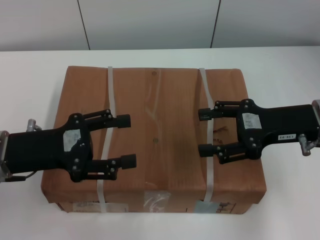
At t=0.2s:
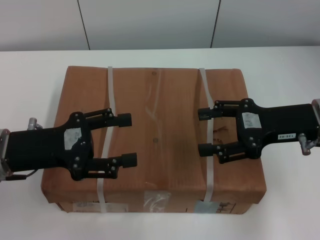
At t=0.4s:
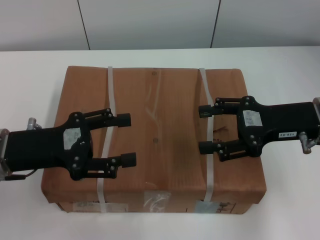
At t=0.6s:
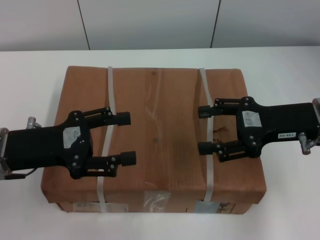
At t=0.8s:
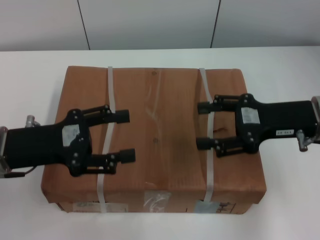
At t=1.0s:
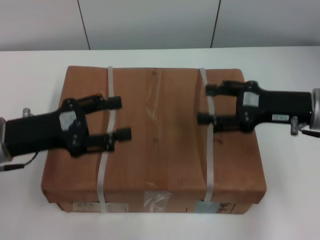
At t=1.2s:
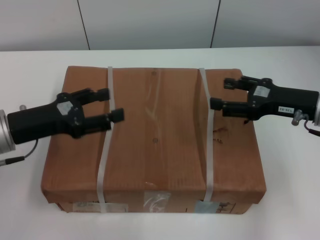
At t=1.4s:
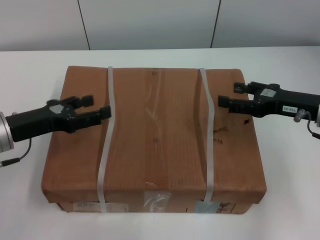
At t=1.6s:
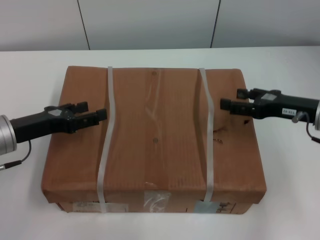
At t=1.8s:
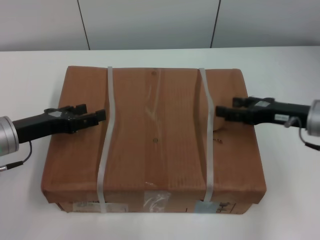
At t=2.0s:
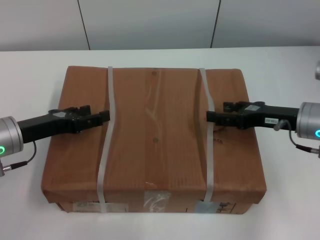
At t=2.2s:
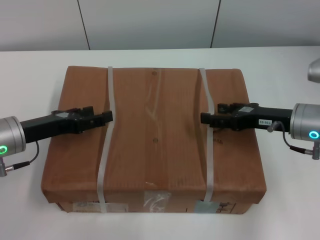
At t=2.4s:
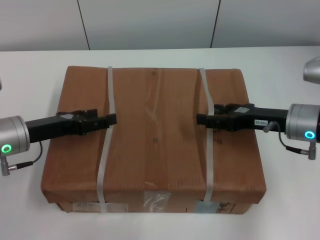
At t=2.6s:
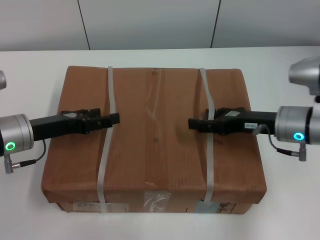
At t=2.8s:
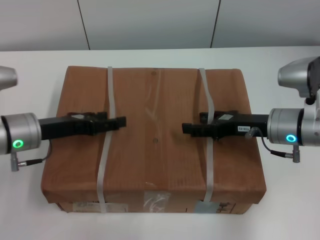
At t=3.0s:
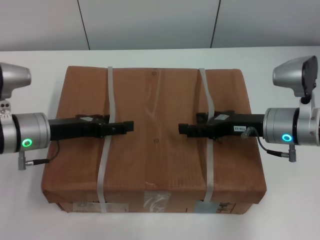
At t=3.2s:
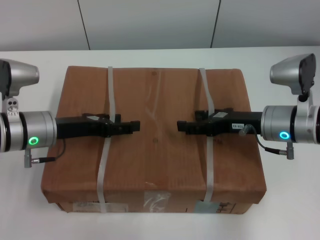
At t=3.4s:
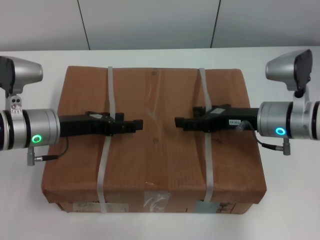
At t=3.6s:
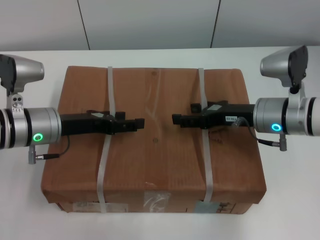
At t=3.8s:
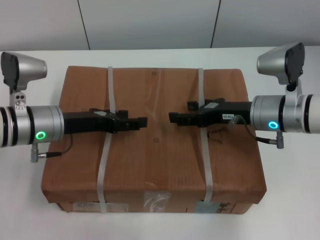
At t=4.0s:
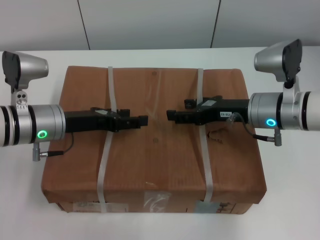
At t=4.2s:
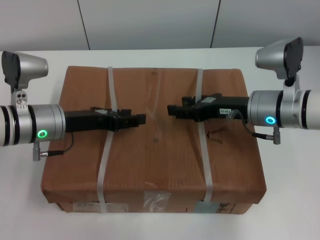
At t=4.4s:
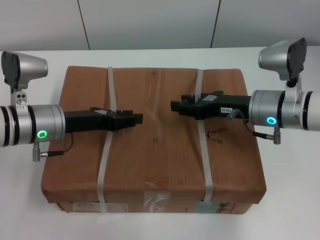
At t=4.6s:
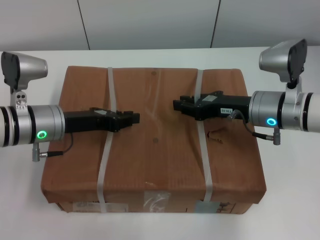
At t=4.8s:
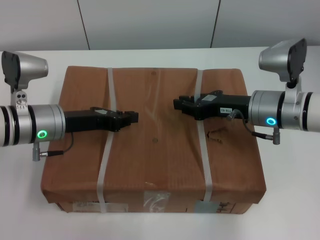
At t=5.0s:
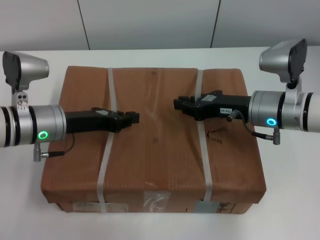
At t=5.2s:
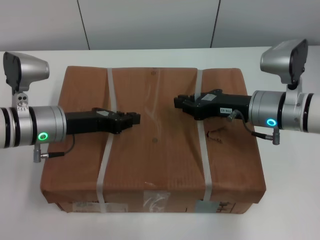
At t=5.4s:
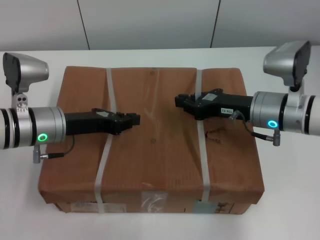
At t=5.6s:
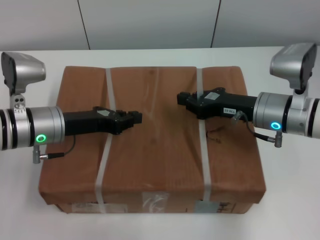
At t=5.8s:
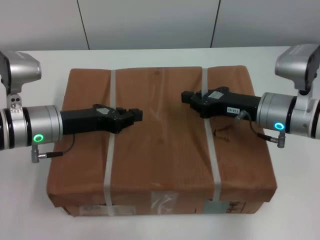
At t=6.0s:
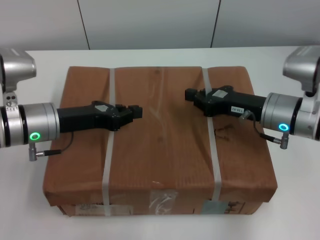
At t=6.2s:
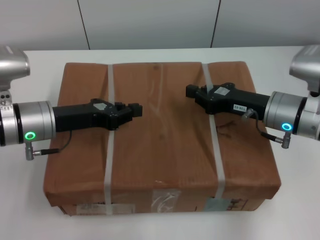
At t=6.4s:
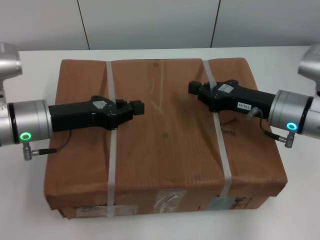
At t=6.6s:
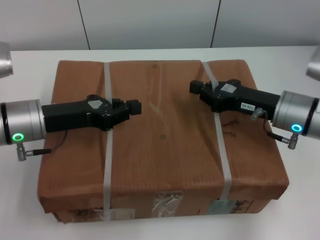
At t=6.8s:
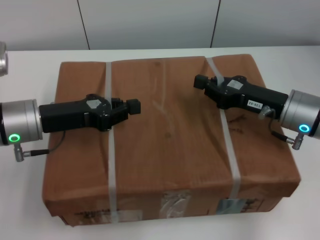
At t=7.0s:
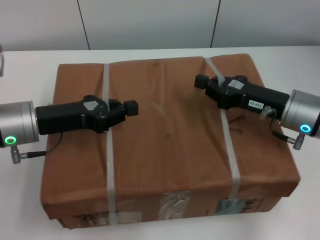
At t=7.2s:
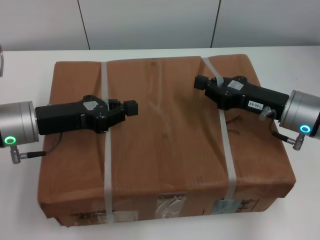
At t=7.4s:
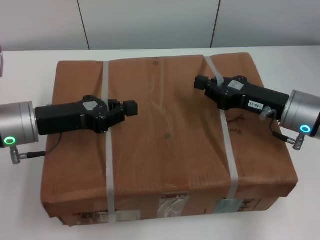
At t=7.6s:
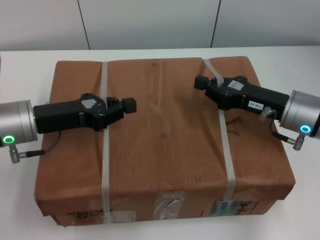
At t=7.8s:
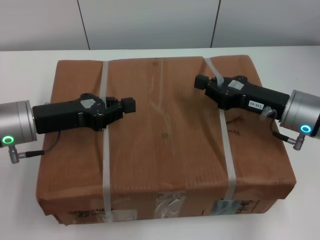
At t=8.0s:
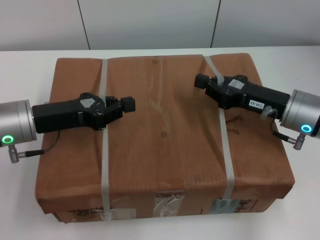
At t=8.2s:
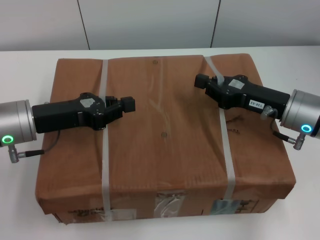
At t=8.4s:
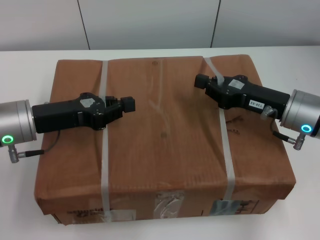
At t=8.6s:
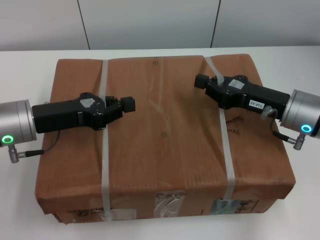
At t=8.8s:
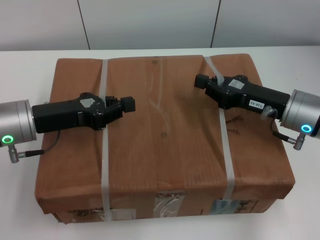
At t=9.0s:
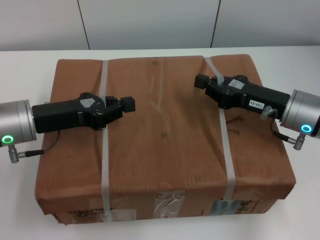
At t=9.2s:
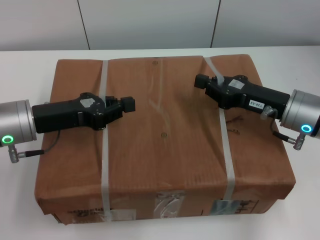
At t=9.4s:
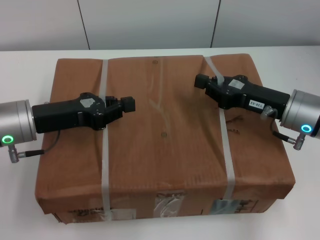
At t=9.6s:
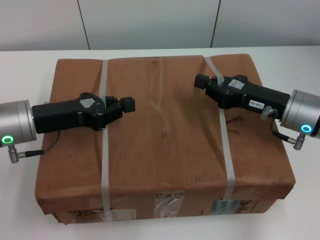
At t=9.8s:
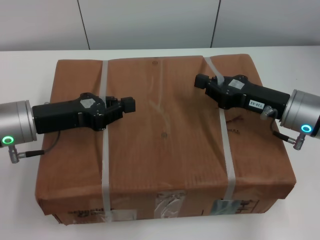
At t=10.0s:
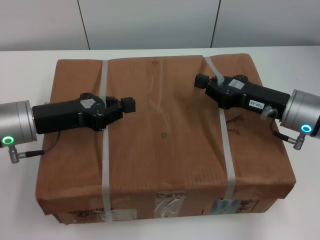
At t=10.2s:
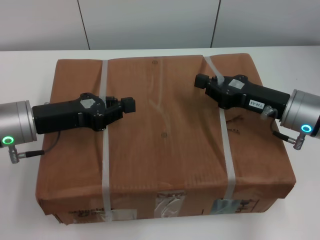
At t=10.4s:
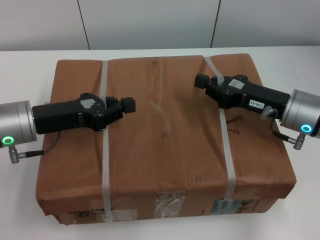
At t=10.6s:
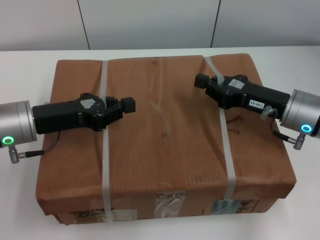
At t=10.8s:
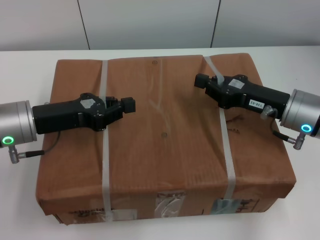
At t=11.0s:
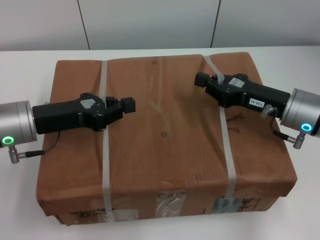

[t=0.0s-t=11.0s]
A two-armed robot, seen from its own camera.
Task of the whole recording: pick up the box from the table with both arms.
Step, t=0.0s to t=5.4s: Grasp the bandage with left gripper.
Step, t=0.0s to t=5.4s: Grasp the bandage with right gripper.
Step, t=5.6s to t=6.8s: Lift the box with left gripper.
Step, t=5.6s to t=6.8s: Lift the box with right gripper.
t=0.0s to t=1.6s: The right gripper shifts by roughly 5 cm, while the left gripper changes place by about 5 cm.
t=1.6s to t=3.2s: The right gripper travels to the left by approximately 5 cm, while the left gripper heads to the right, covering about 5 cm.
t=3.2s to t=4.8s: The right gripper closes its fingers. The left gripper closes its fingers.
t=7.8s to t=11.0s: Neither gripper changes place.
